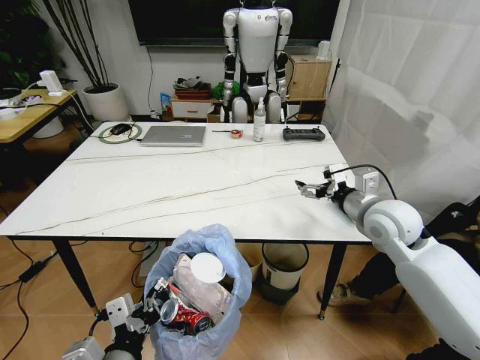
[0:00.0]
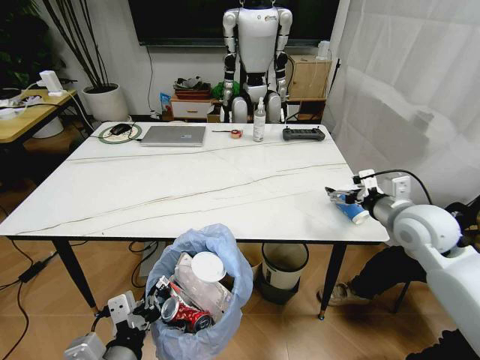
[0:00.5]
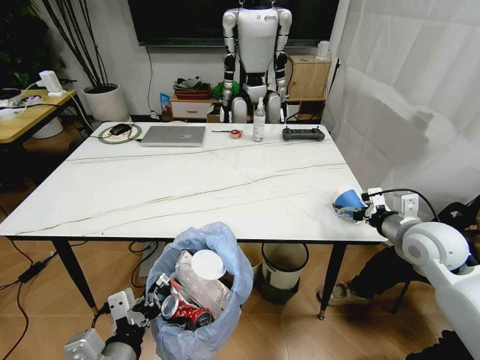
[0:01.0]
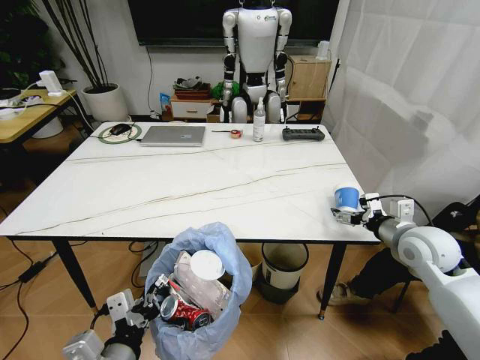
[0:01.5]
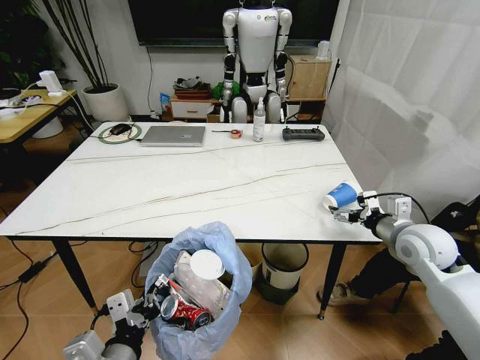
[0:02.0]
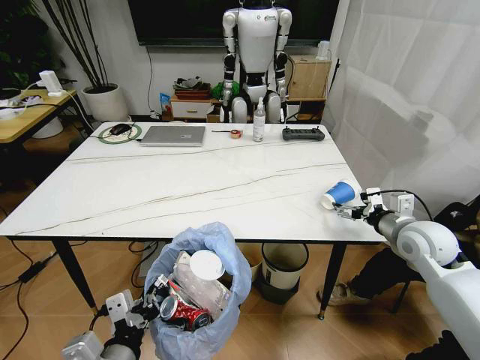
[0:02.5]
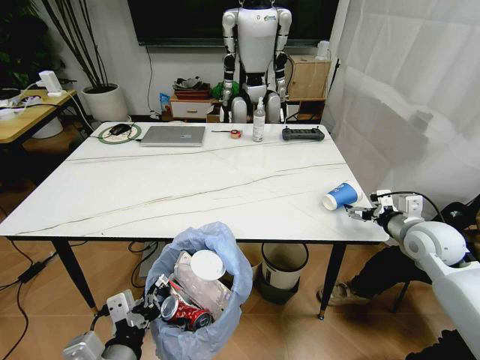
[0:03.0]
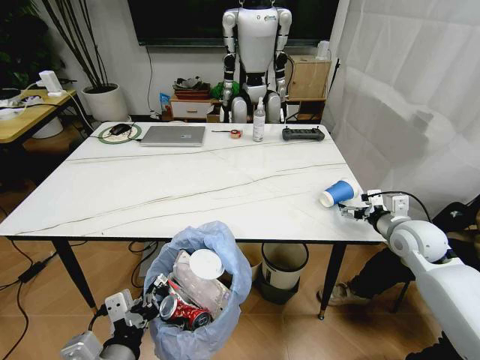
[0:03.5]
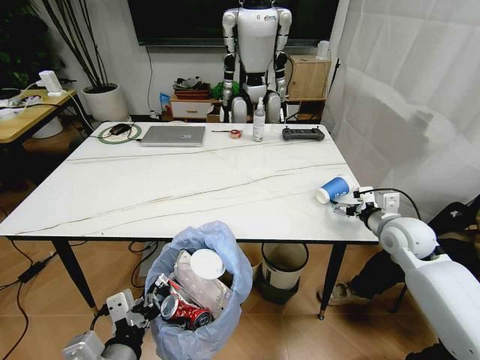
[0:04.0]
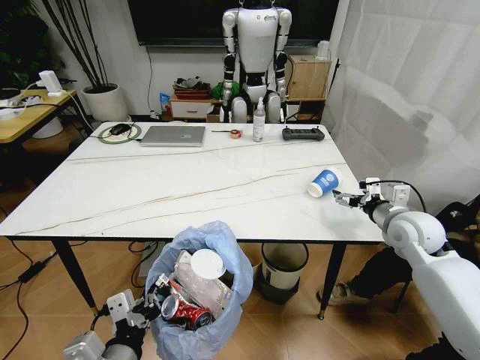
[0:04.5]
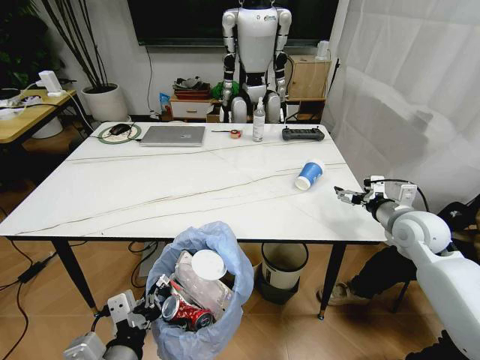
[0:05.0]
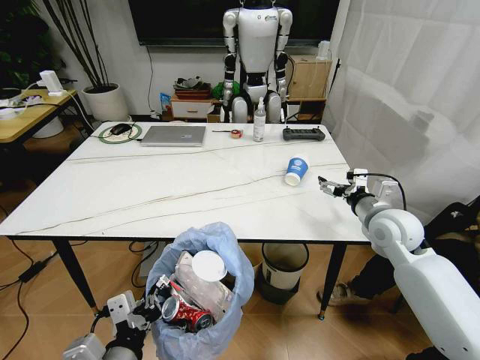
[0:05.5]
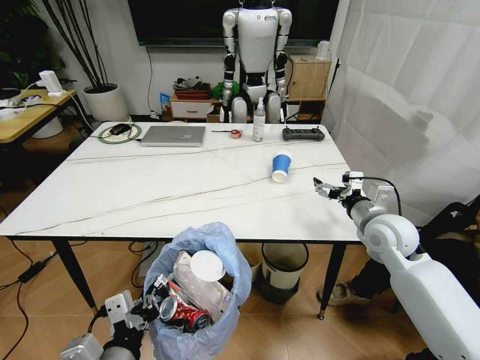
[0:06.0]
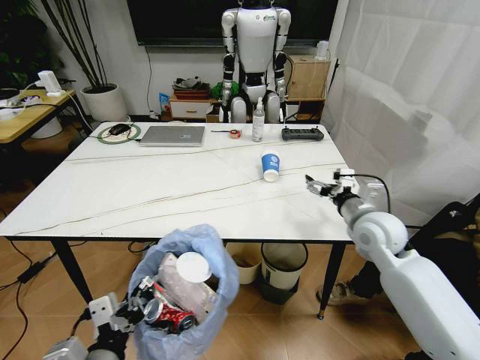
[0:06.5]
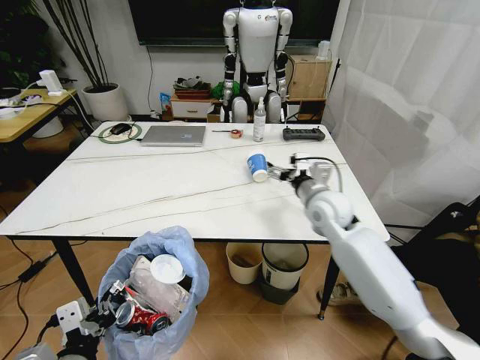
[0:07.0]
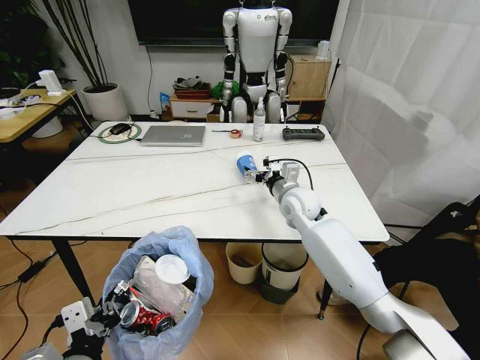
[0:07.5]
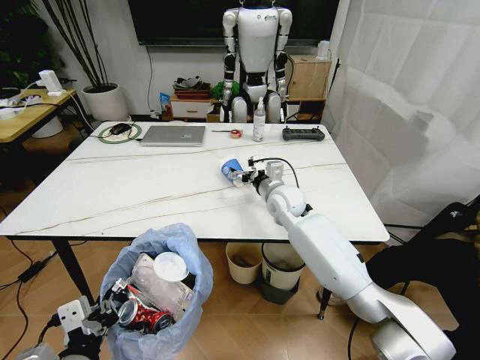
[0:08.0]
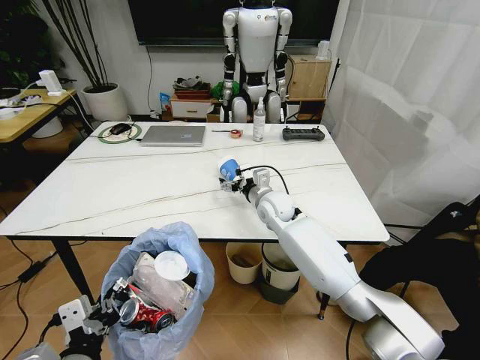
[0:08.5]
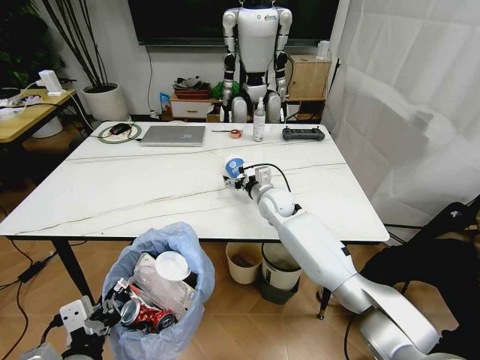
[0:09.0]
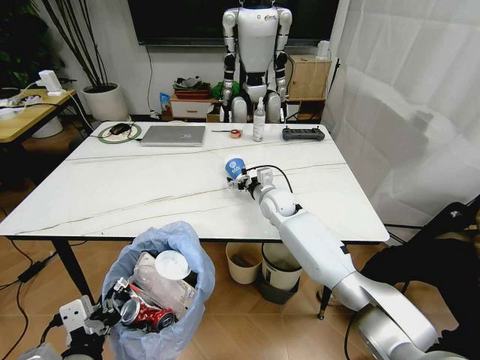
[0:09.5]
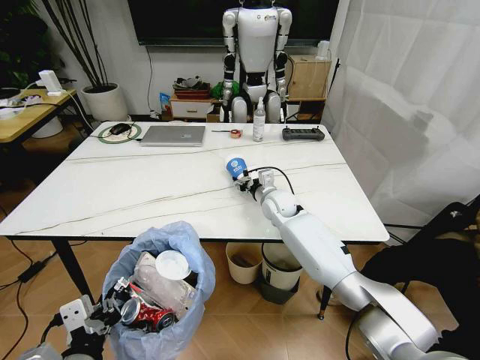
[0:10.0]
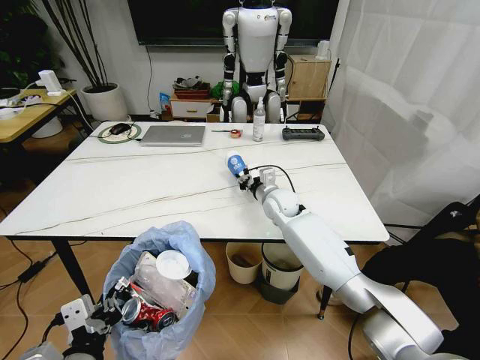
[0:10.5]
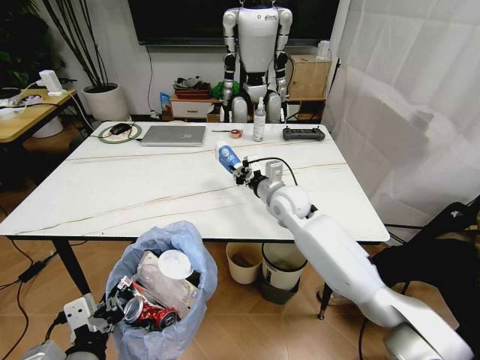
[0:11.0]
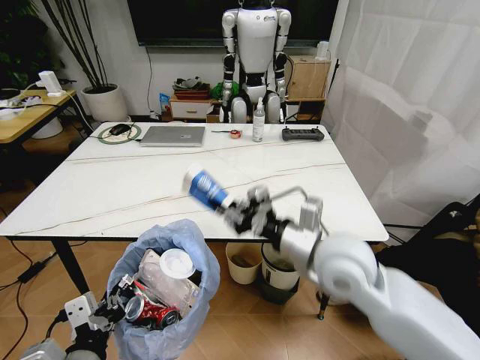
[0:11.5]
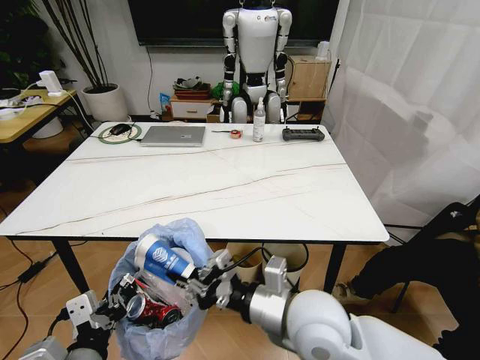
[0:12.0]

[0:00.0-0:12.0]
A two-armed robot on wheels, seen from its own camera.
Task of the whole recording: Pick up the trash bin and place the trash from the table into it.
0:00.0 to 0:02.0: The right gripper goes some 10 cm to the right.
0:02.0 to 0:04.0: There are only small adjustments of the grippers.
0:04.0 to 0:06.0: The right gripper is displaced to the left by approximately 5 cm.
0:06.0 to 0:08.0: The right gripper goes about 25 cm to the left and forward.
0:08.0 to 0:10.0: The right gripper moves downward, some 5 cm, and closes its fingers.
0:10.0 to 0:12.0: The right gripper goes roughly 35 cm backward, and closes its fingers.

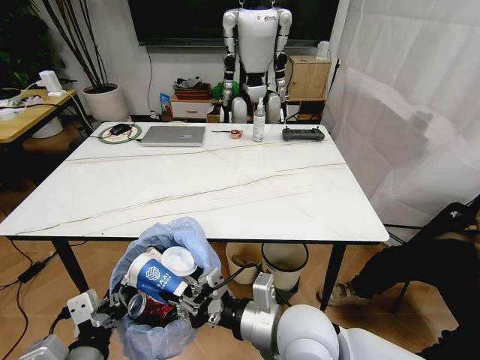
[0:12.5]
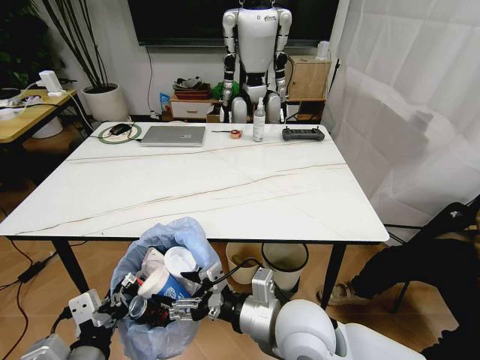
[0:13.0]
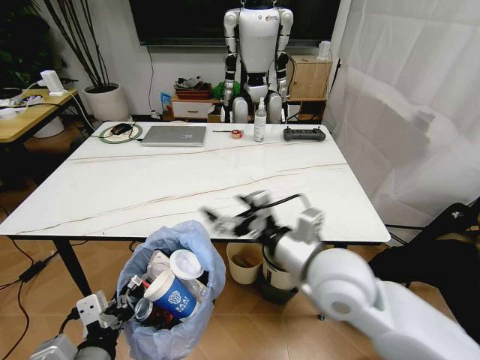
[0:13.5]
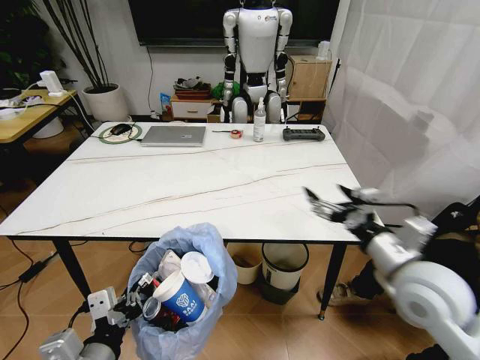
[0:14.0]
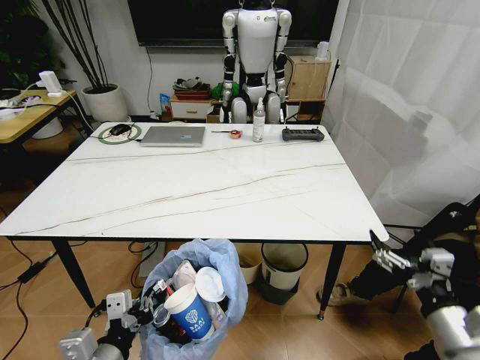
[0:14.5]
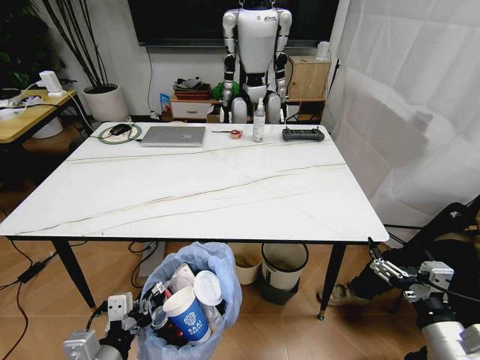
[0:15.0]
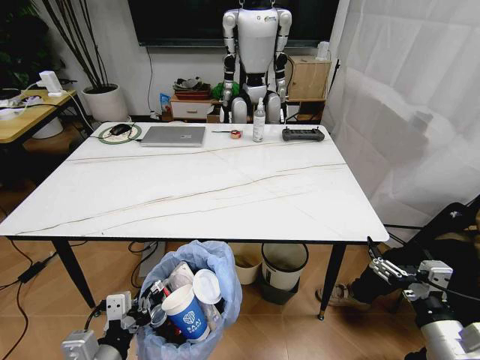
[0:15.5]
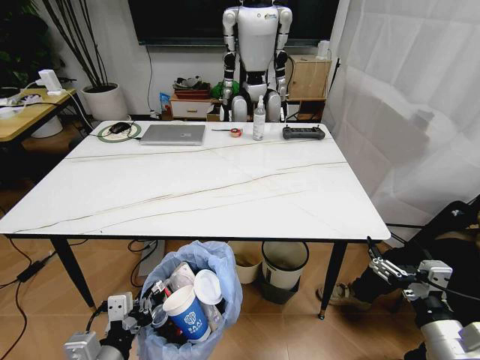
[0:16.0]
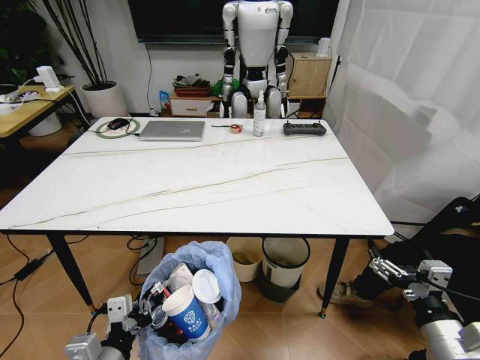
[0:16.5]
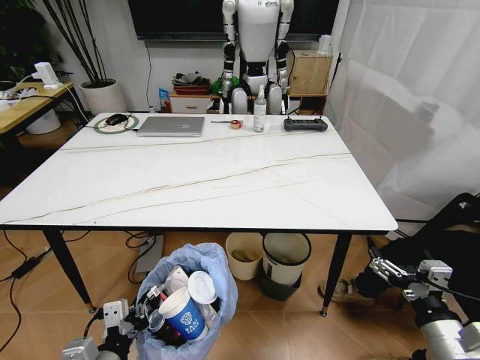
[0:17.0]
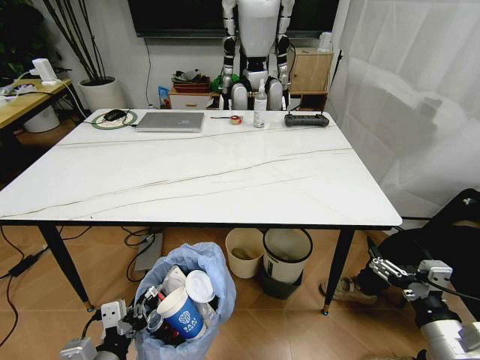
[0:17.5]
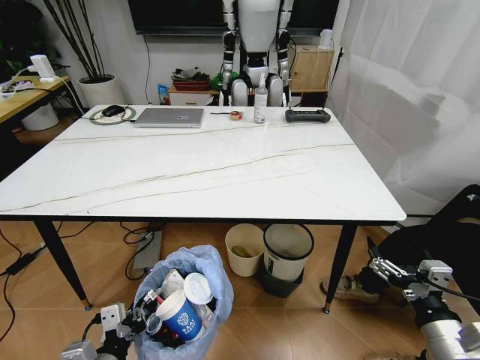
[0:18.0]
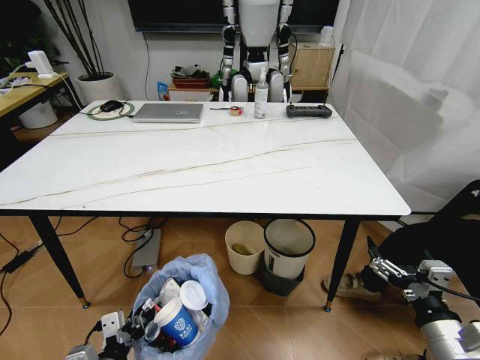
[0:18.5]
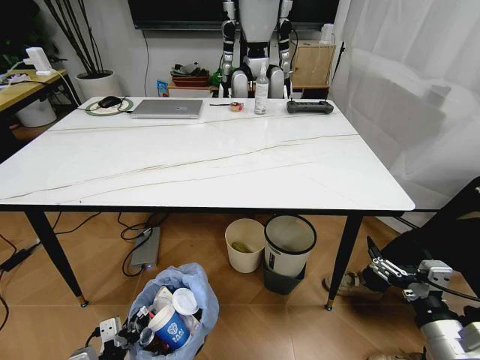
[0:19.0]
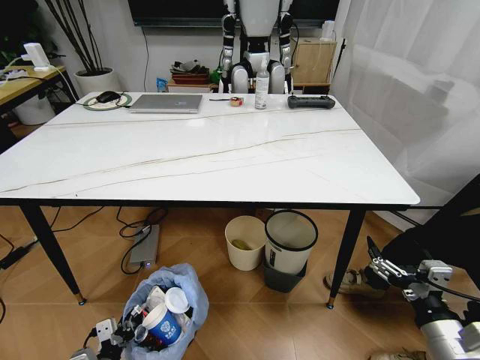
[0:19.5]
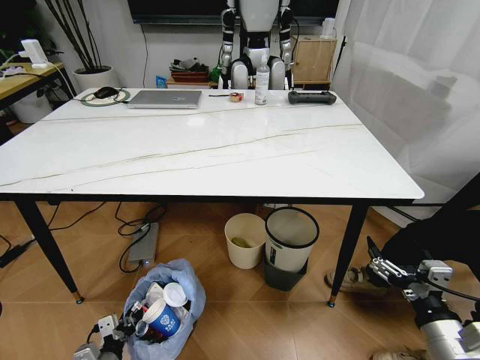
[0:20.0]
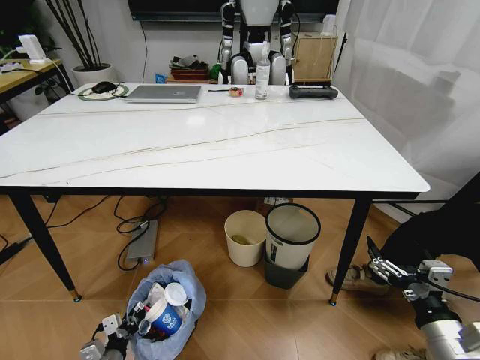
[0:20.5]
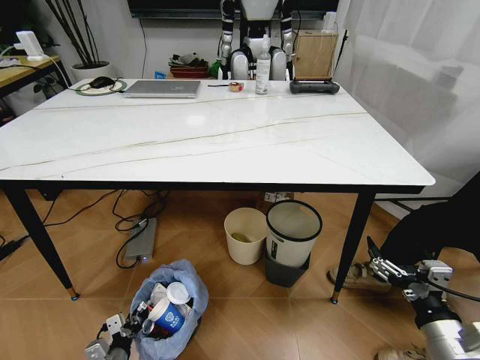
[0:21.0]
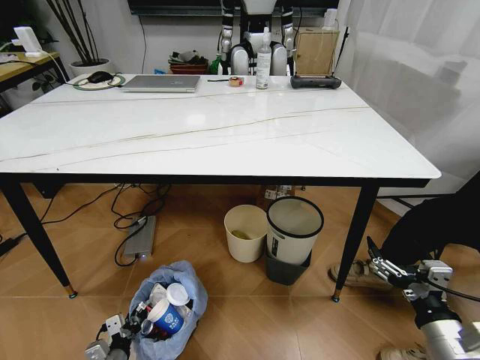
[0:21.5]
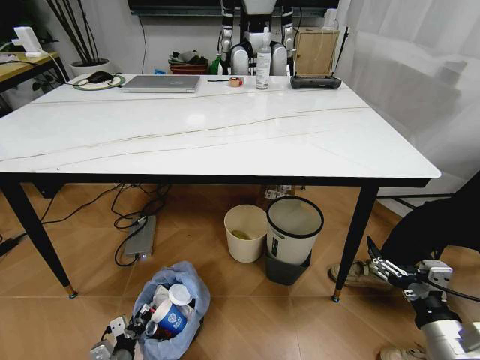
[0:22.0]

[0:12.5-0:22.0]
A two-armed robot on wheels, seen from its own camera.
Task of the whole recording: Pick up the trash bin and place the trash from the table into it.
0:12.5 to 0:14.5: The right gripper travels to the right by about 25 cm, and opens up.
0:18.0 to 0:20.0: The left gripper is displaced downward and to the left by roughly 20 cm.
0:20.0 to 0:22.0: The left gripper changes place by approximately 5 cm.

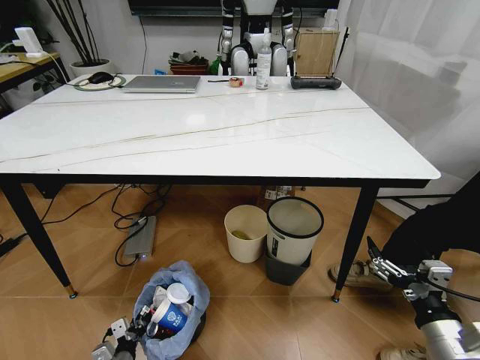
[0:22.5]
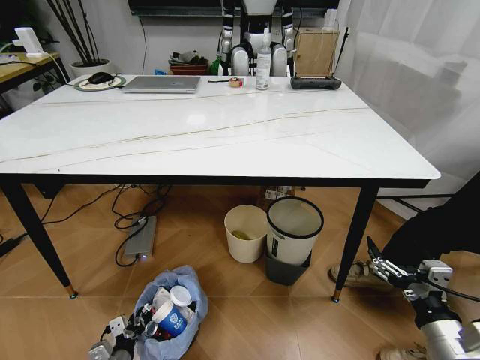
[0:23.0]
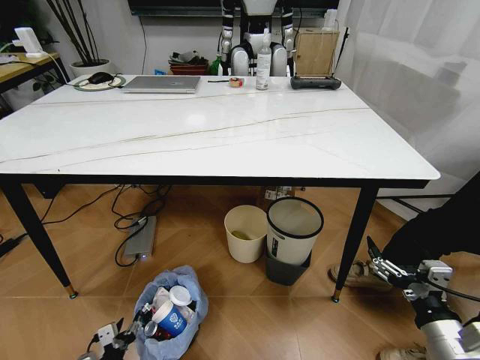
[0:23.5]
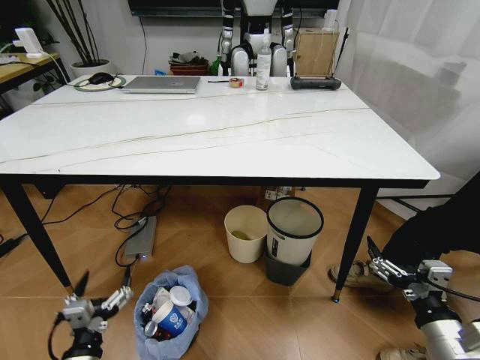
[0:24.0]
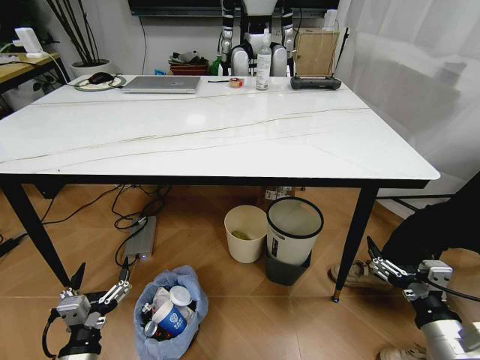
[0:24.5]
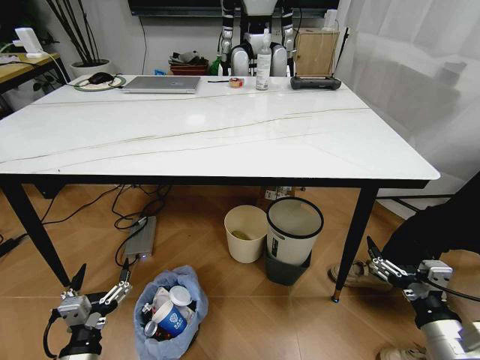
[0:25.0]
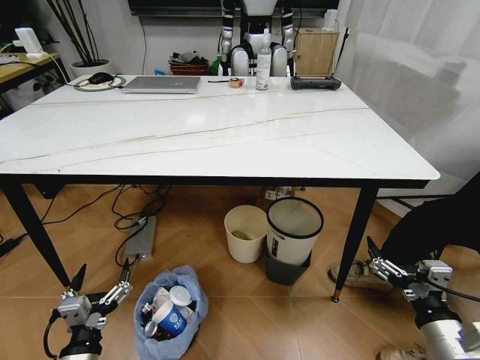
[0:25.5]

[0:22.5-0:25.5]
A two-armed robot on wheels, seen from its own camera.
Task of the whole recording: Pick up the trash bin and place the trash from the table into it.
0:22.5 to 0:24.0: The left gripper moves upward, about 15 cm, and opens.
0:24.0 to 0:25.5: The grippers move only a little.
